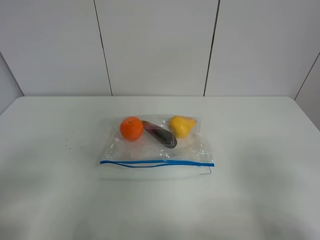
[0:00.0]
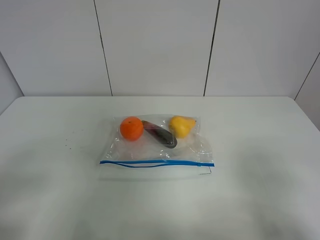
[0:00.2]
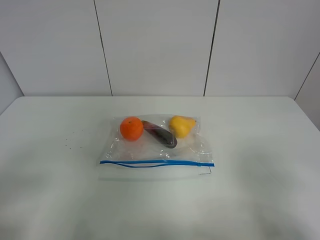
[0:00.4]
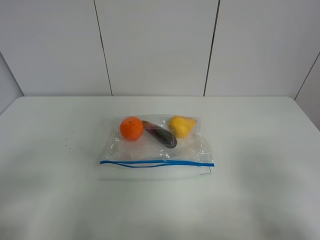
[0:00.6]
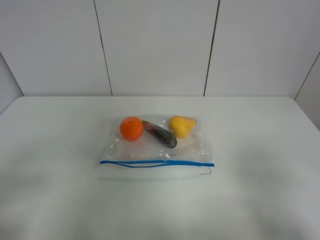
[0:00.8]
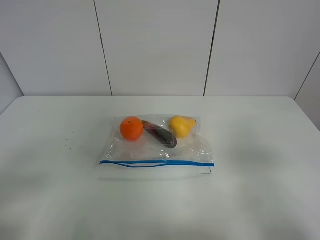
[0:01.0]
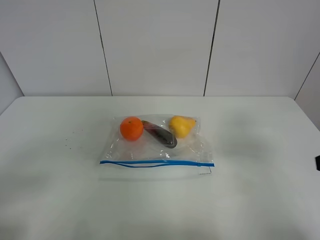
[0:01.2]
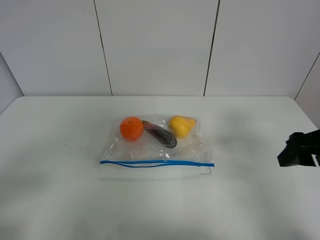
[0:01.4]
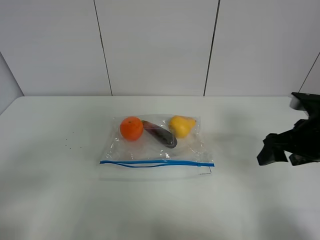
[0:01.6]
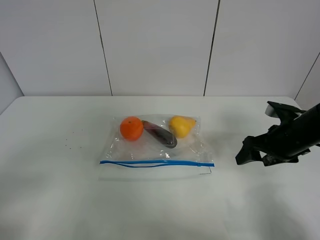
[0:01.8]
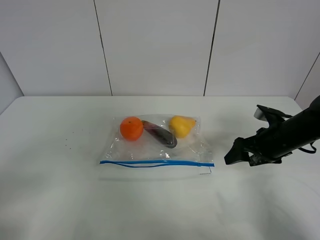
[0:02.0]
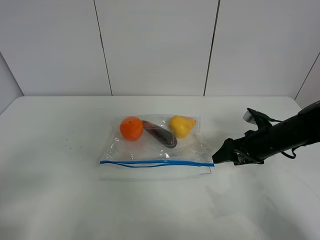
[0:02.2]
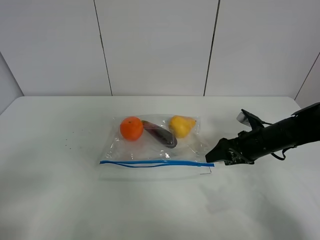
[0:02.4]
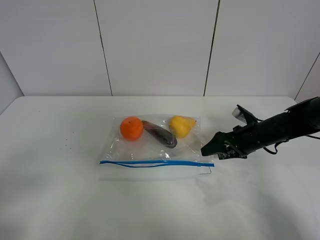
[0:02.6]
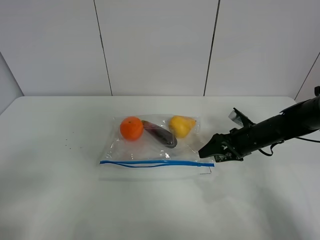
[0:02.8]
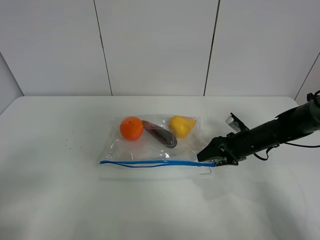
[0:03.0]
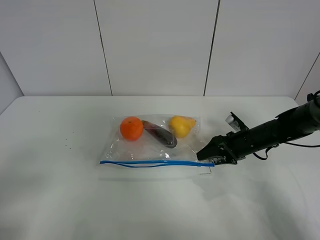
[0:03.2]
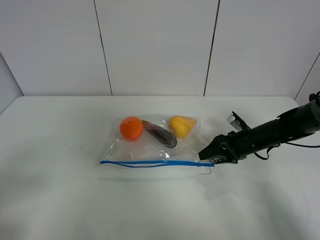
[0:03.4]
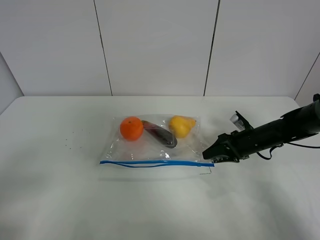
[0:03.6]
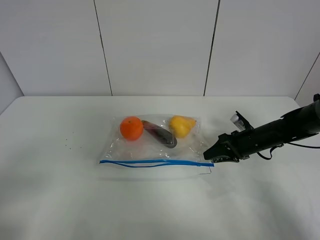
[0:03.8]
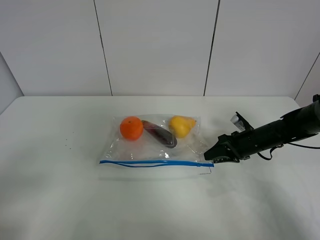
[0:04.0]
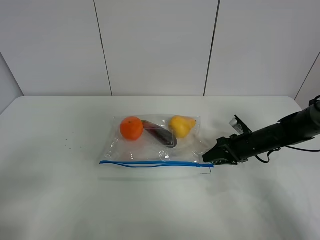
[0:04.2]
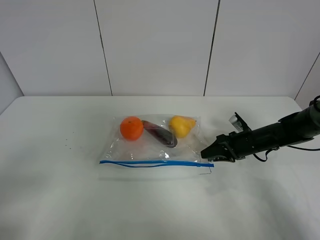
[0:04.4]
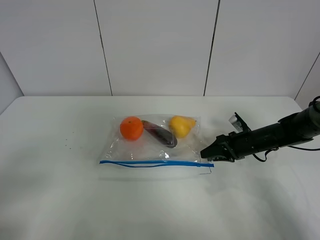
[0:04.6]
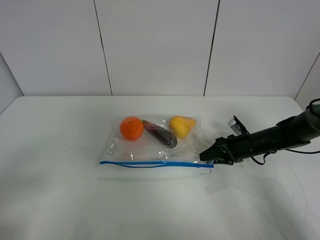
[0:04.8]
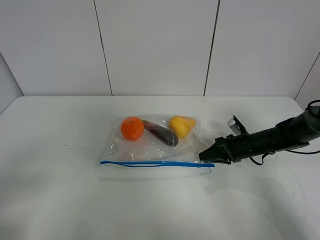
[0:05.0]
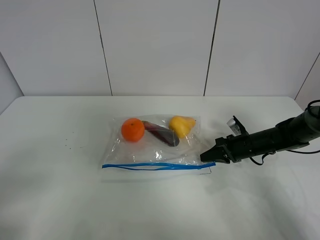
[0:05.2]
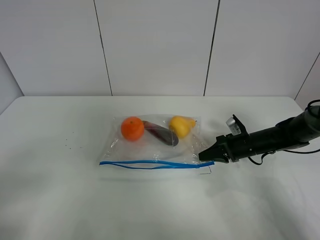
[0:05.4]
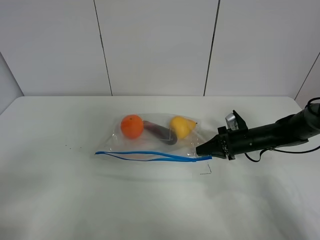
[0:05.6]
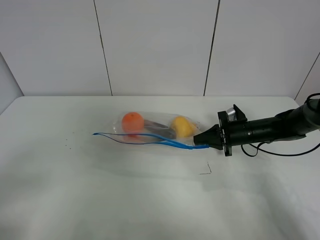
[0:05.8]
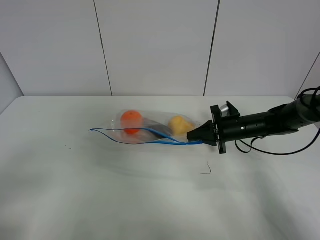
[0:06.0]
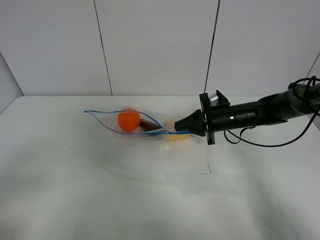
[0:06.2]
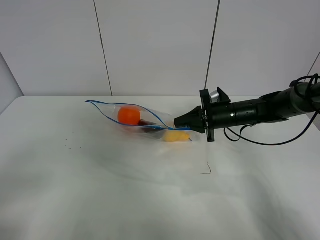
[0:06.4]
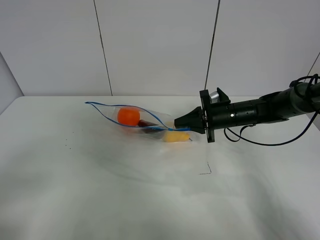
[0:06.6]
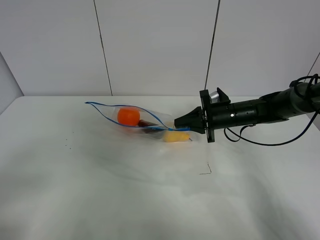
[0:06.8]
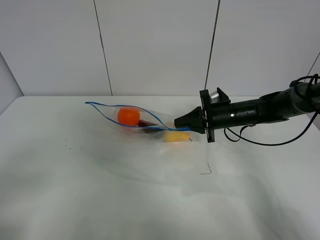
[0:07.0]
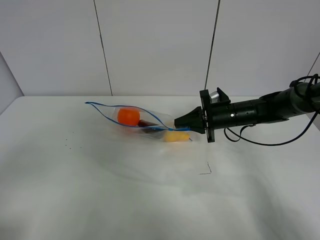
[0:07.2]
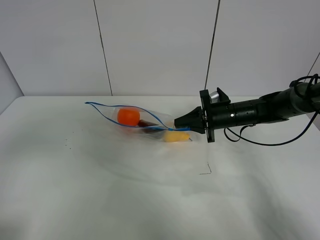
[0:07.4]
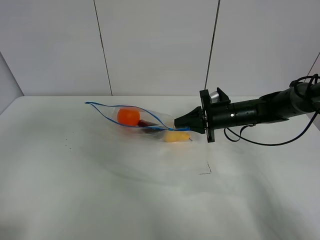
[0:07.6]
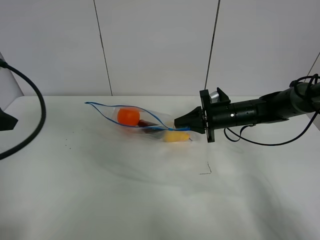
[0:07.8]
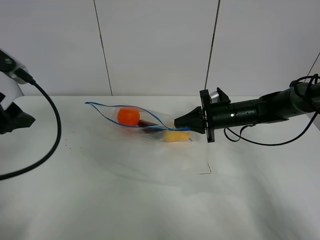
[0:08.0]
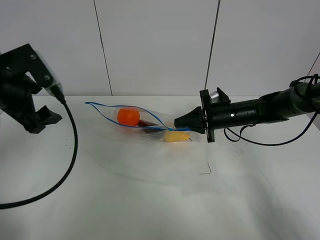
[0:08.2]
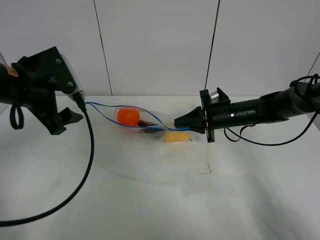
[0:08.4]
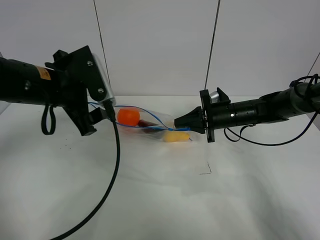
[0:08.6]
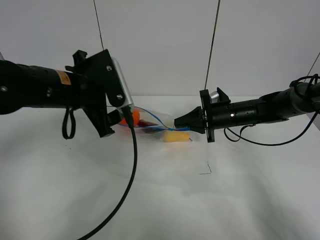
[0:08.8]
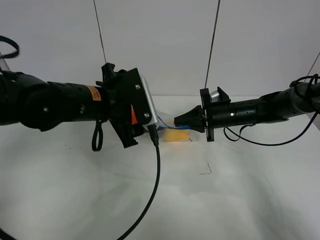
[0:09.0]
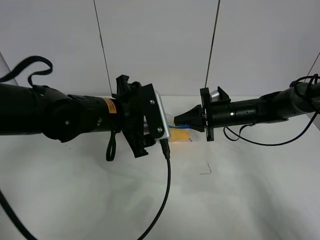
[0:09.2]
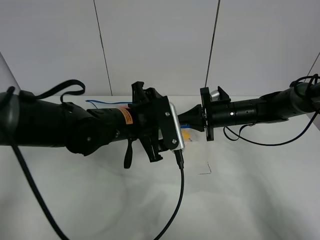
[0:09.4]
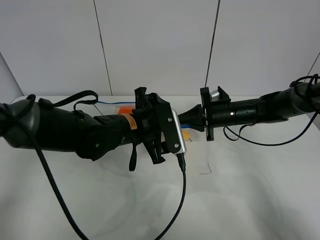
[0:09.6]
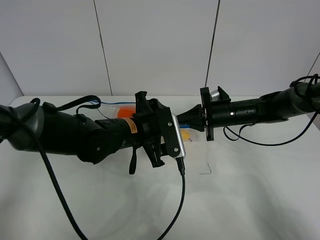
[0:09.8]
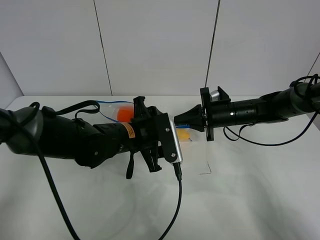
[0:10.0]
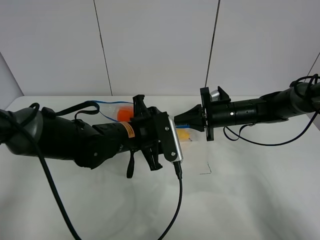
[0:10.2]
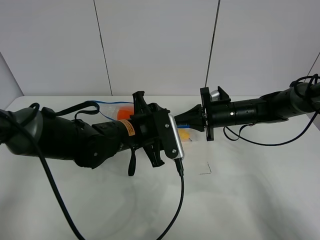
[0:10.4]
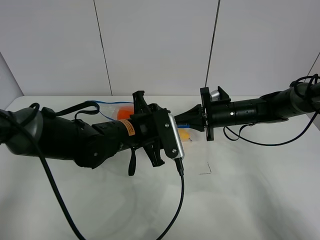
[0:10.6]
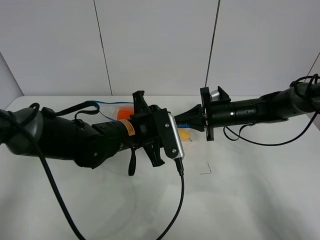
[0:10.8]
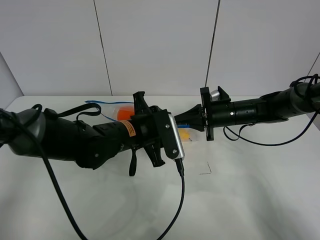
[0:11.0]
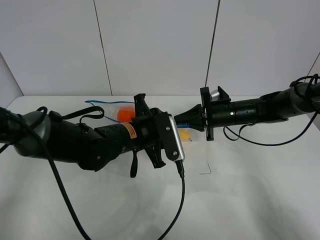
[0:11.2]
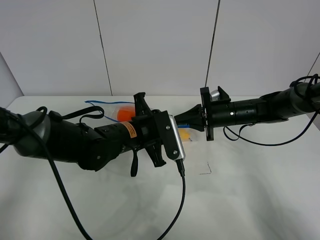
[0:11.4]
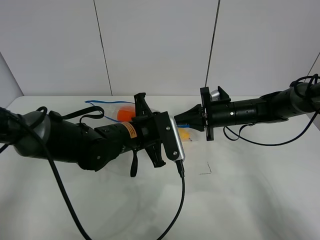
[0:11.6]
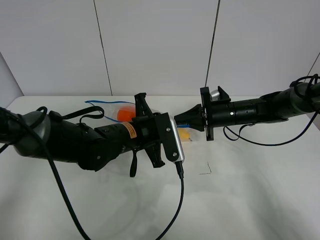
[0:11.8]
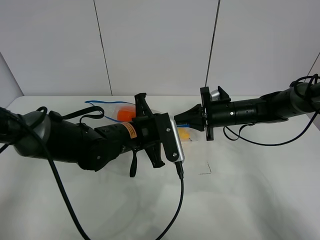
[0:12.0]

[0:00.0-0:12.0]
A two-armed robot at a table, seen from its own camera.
Step, 0:00.0 to 0:05.2: Grasp the fruit bag with right gripper.
Step, 0:05.4 to 0:06.6: Lift the fruit bag with your right gripper.
0:00.0 to 0:01.6: The right gripper travels forward by approximately 25 cm.
0:01.6 to 0:03.0: The right gripper moves downward and forward, approximately 15 cm.
0:03.0 to 0:04.4: The grippers make only small movements.
0:04.4 to 0:06.0: The right gripper shifts by some 5 cm, and closes.
0:06.0 to 0:07.6: The left gripper heads forward and upward, covering approximately 15 cm.
0:07.6 to 0:09.0: The left gripper is displaced to the right, forward and downward by about 30 cm.
0:09.0 to 0:10.4: The left gripper moves downward, some 10 cm.
0:10.4 to 0:12.0: The left gripper closes up.

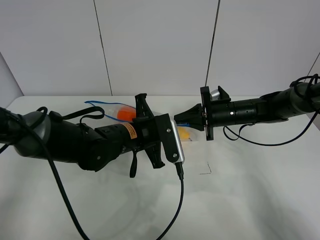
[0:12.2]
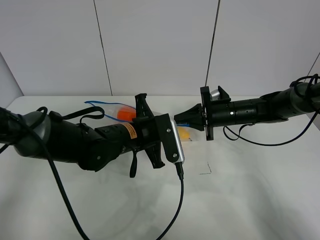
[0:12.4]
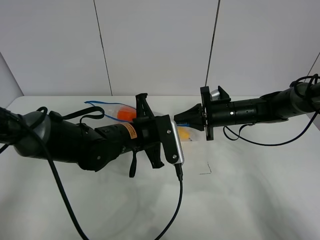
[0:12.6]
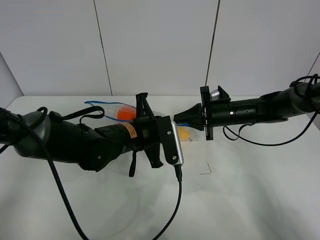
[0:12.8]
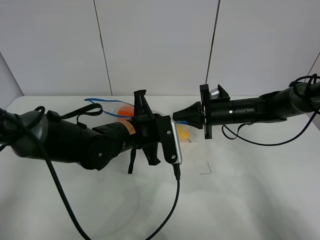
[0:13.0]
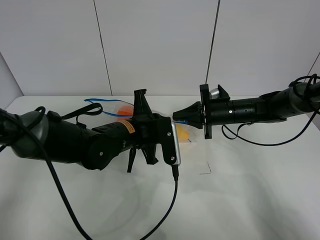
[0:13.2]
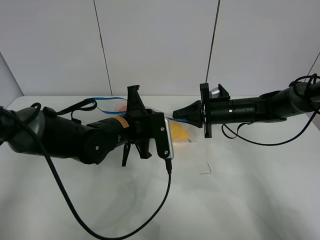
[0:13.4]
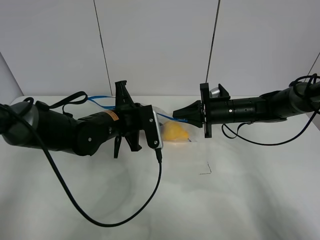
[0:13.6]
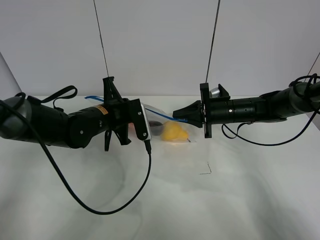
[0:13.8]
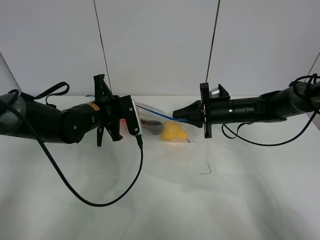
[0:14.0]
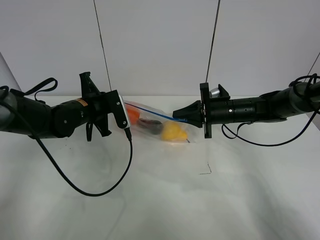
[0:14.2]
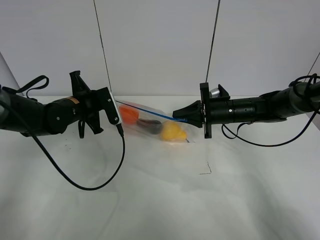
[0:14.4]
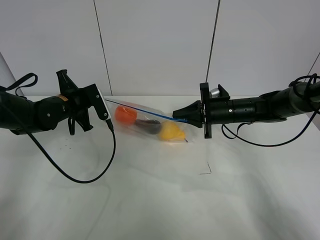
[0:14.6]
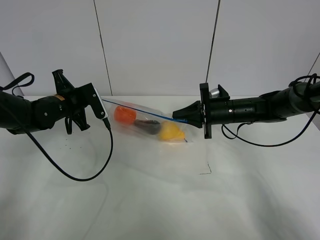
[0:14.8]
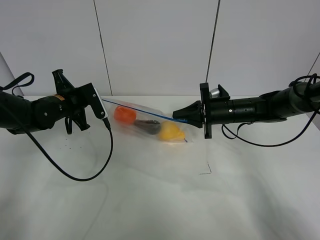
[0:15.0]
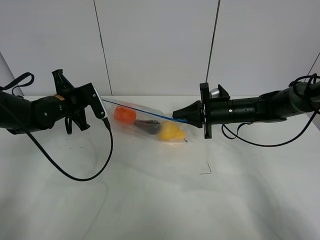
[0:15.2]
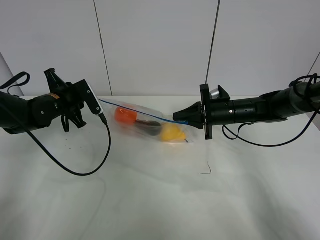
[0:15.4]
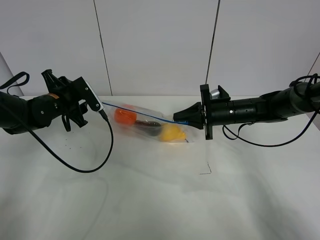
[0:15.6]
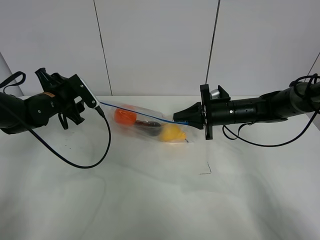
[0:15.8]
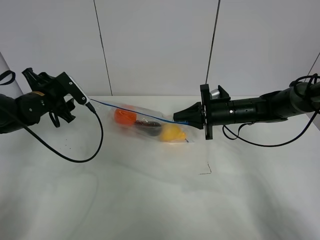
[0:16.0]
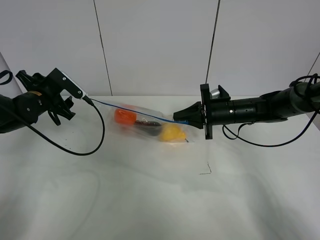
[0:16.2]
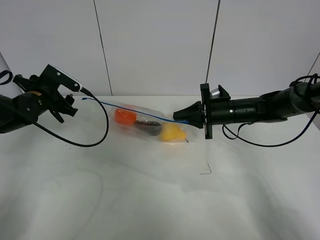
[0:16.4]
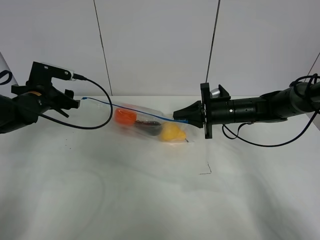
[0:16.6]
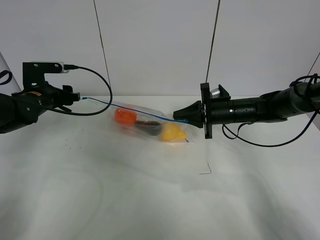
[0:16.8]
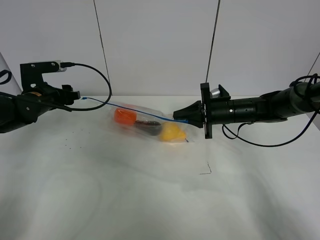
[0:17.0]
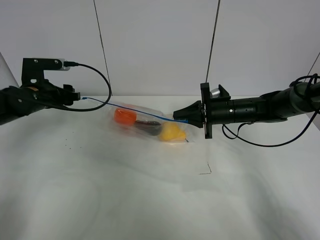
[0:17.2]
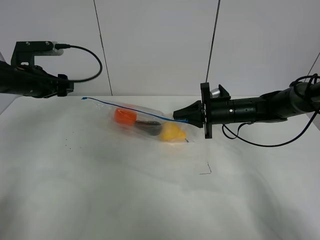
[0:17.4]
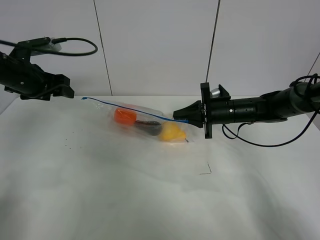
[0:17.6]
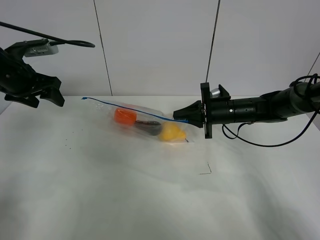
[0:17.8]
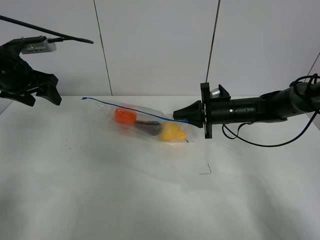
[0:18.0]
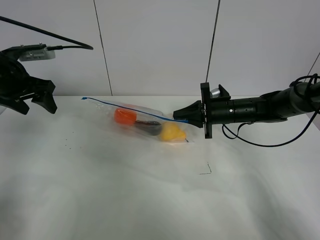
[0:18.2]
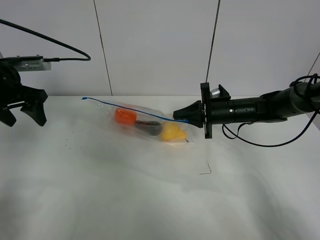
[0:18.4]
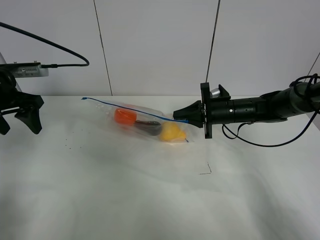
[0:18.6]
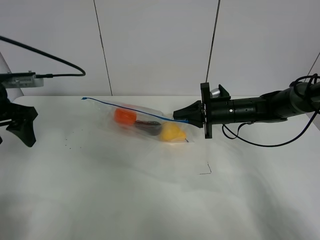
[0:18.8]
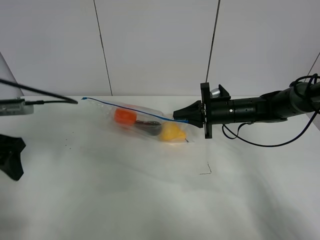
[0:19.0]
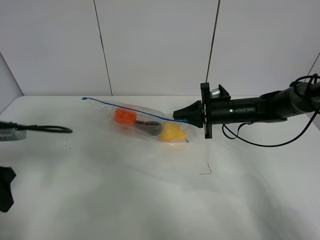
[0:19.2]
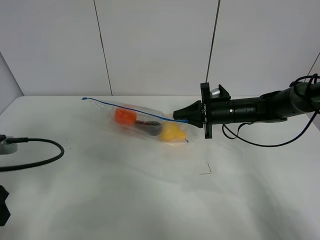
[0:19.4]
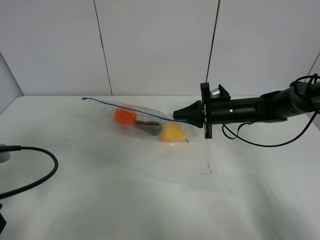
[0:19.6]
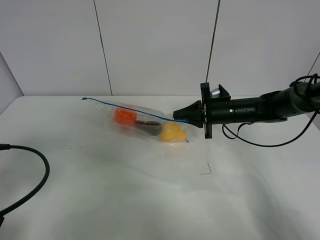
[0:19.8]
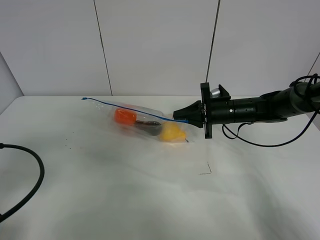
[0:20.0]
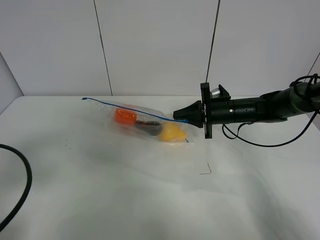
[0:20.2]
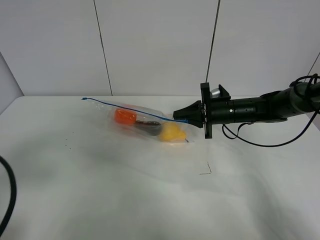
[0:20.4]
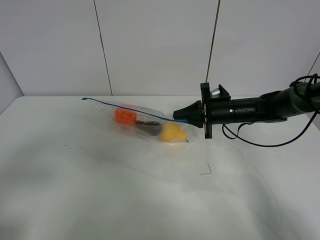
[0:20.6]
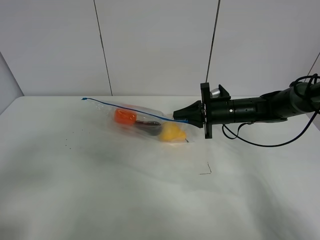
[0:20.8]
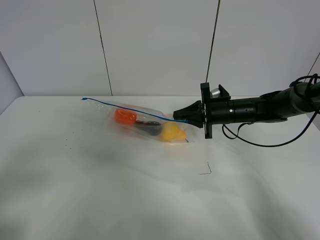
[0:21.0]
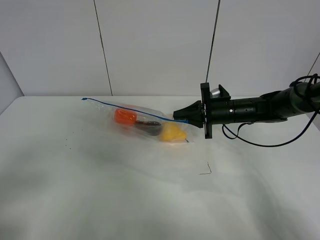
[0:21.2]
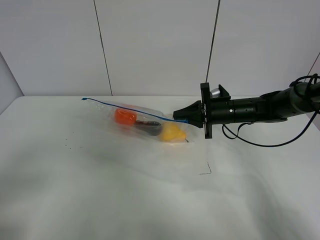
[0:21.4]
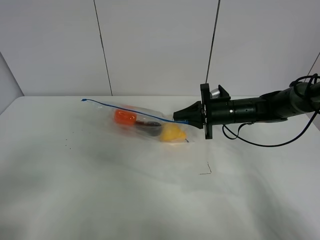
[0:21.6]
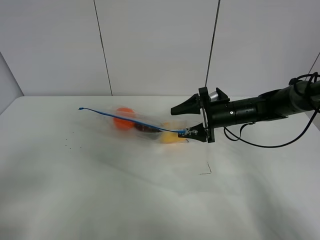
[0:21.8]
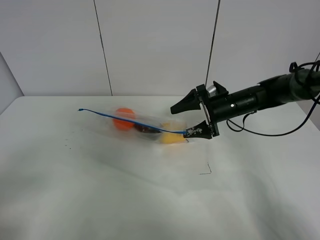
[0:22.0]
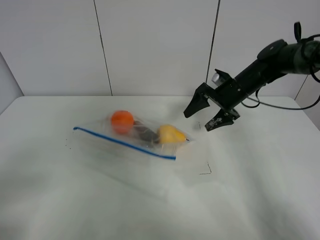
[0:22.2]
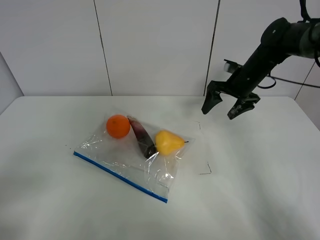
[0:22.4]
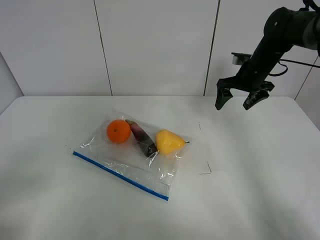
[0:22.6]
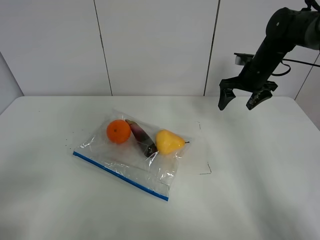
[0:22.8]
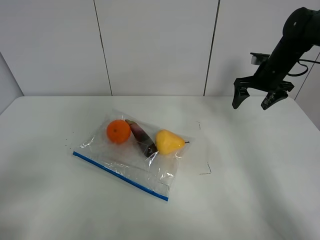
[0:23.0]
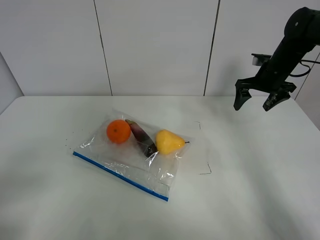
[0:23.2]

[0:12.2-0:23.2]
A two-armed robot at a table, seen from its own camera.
Step, 0:12.2 to 0:15.6: Pull the fruit bag with left gripper.
0:12.2 to 0:13.8: The left gripper goes roughly 10 cm to the left and forward.
0:13.8 to 0:15.4: The left gripper moves to the left, some 10 cm.
0:15.4 to 0:17.0: The left gripper opens its fingers.
0:17.0 to 0:18.4: The left gripper moves upward, approximately 10 cm.
0:18.4 to 0:20.0: The left gripper heads backward, covering some 25 cm.
0:20.0 to 0:21.6: The left gripper is displaced backward by approximately 10 cm.
0:21.6 to 0:23.2: The right gripper is displaced to the right, upward and forward by roughly 15 cm, and opens its fingers.
